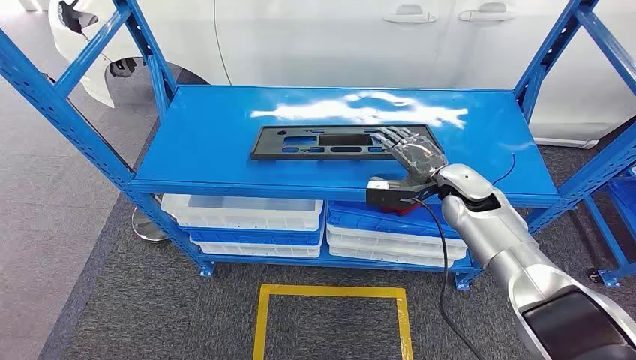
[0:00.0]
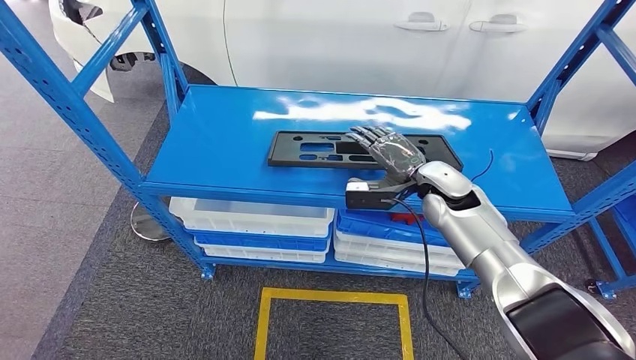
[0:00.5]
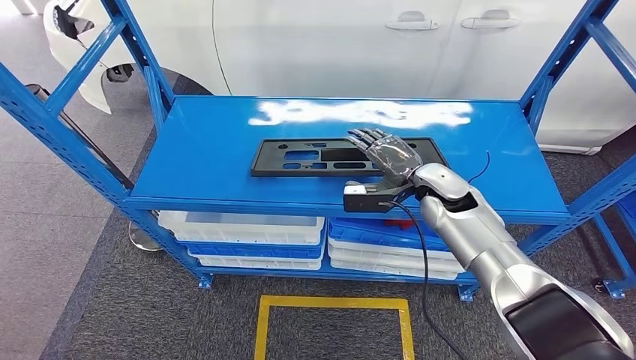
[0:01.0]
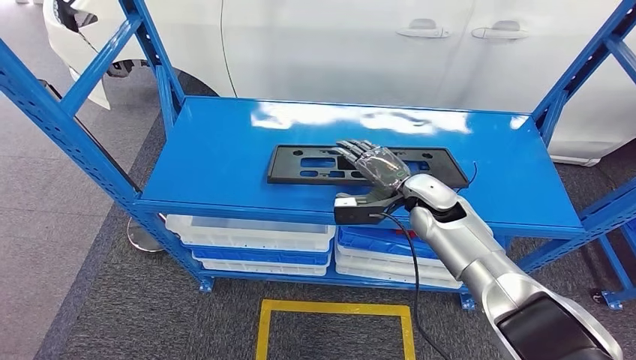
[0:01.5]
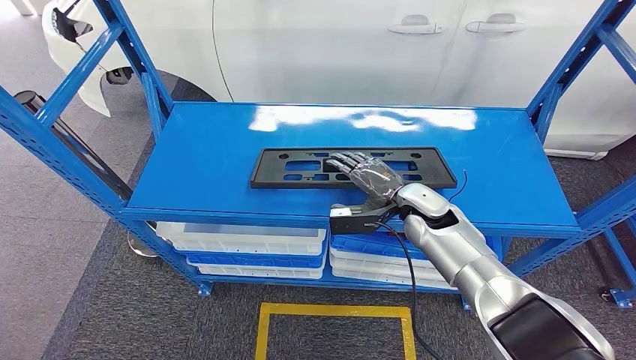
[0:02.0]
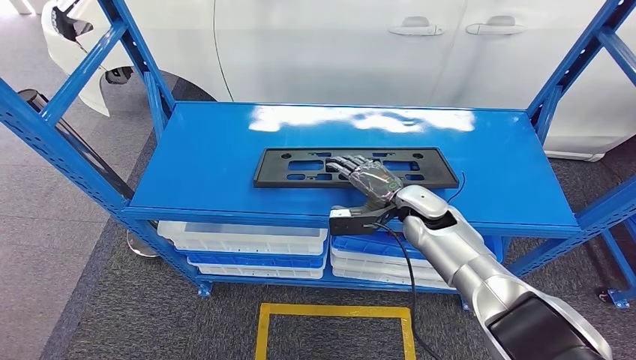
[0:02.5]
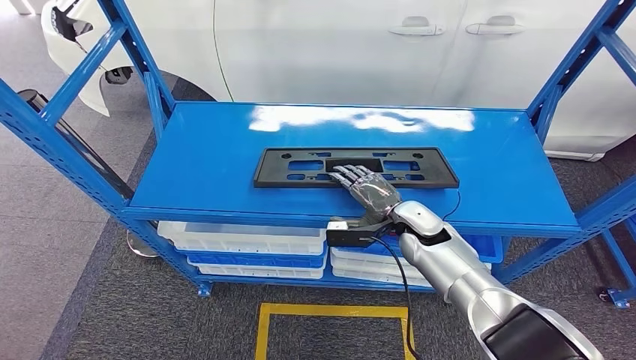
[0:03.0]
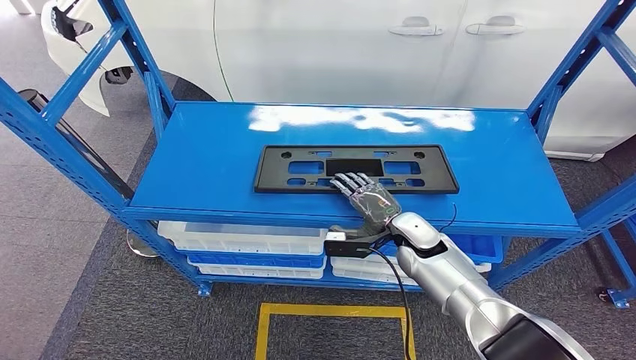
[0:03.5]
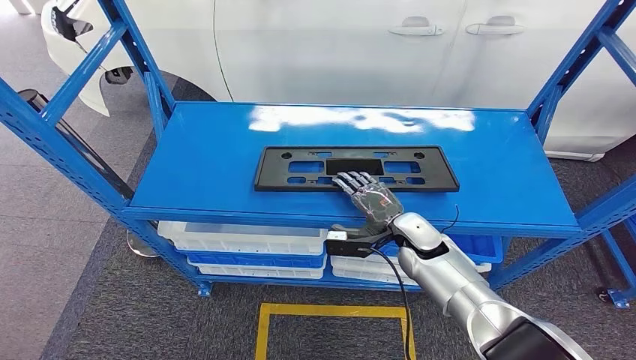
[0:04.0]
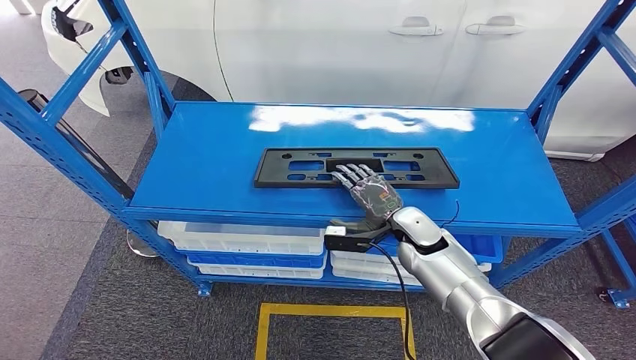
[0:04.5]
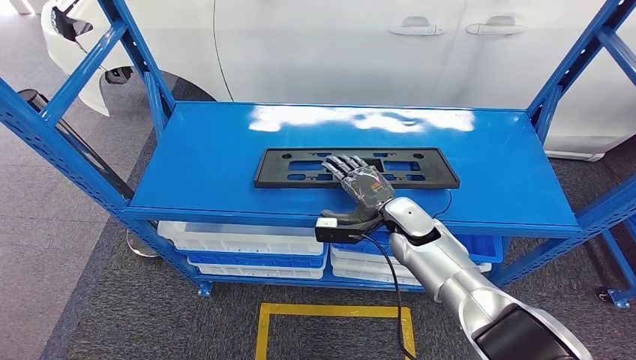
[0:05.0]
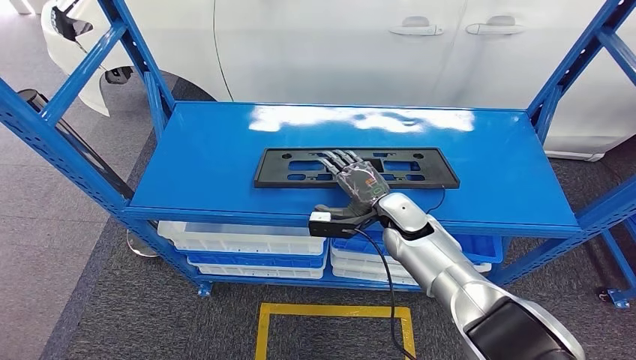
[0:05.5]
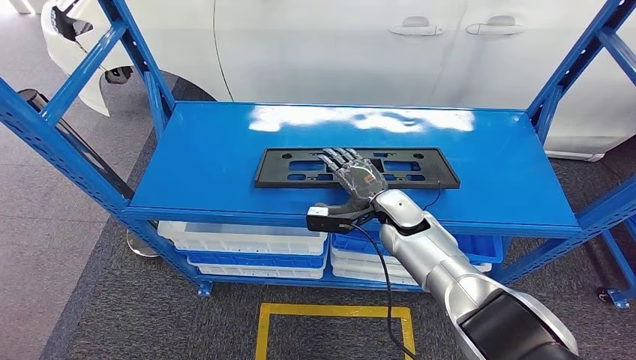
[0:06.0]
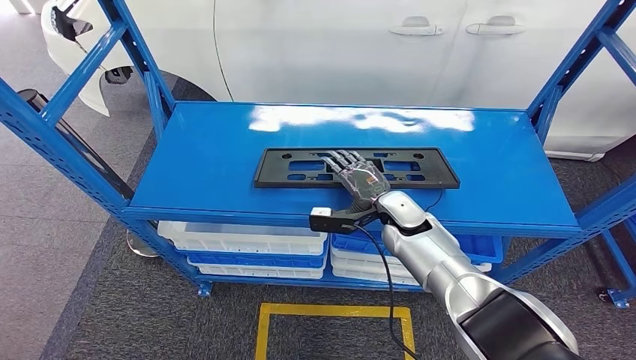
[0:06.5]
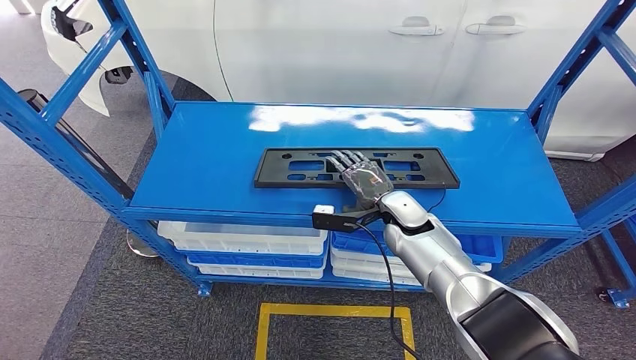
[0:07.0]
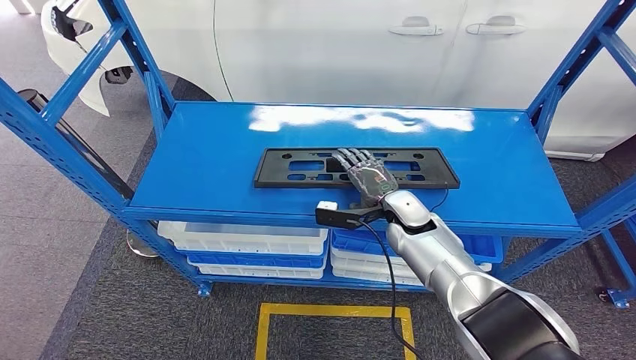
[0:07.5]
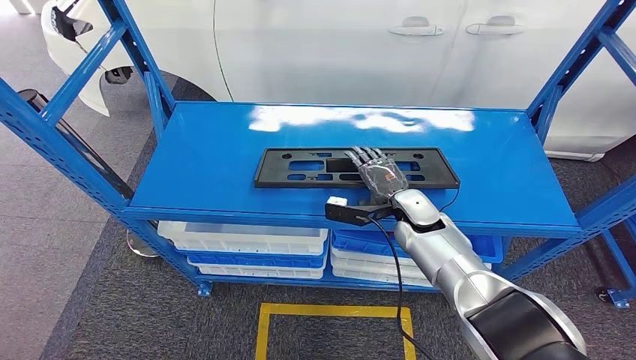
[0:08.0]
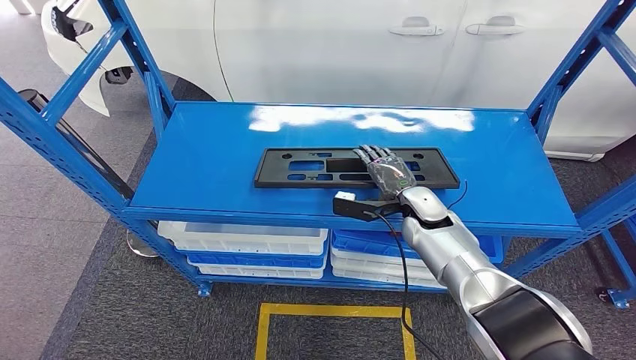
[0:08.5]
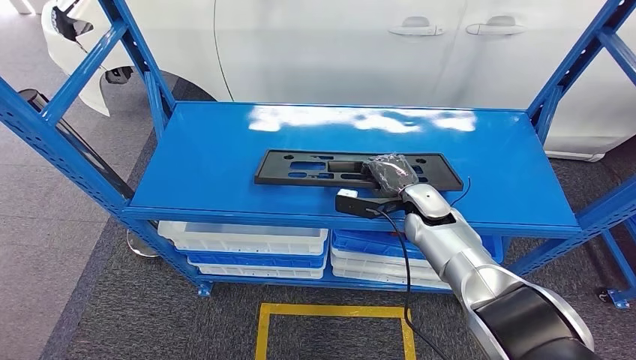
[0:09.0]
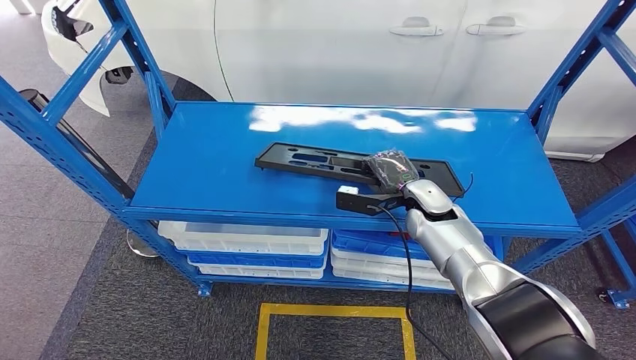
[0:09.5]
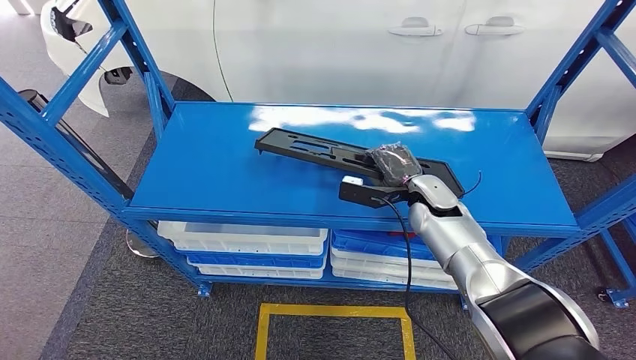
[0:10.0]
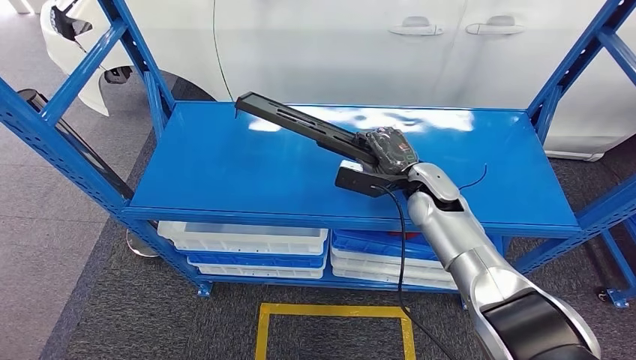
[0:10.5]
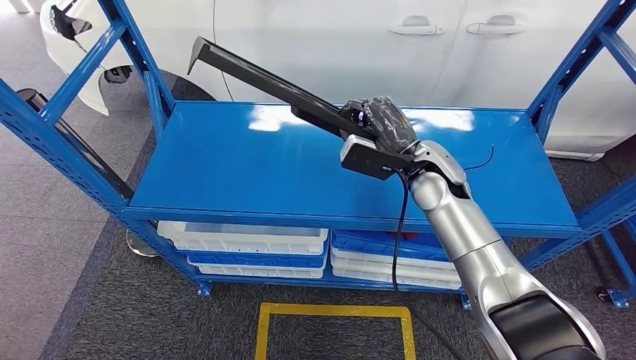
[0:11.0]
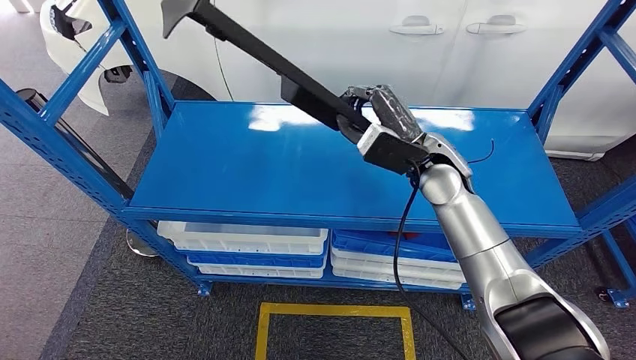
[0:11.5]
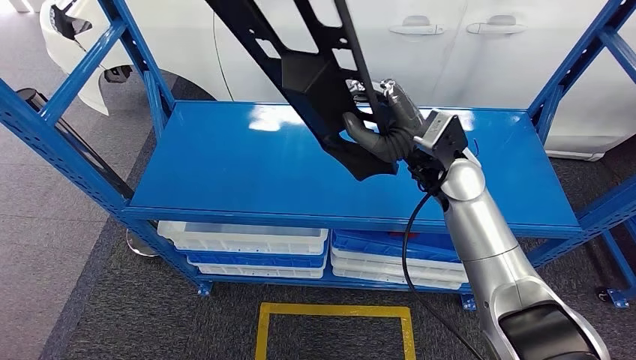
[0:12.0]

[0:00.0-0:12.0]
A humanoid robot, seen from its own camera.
0:02.0 to 0:04.0: The right hand travels downward by about 5 cm.
0:04.0 to 0:06.0: The right hand shifts by roughly 5 cm.
0:06.0 to 0:08.0: The hands make only small movements.
0:08.0 to 0:10.0: The hands move only a little.

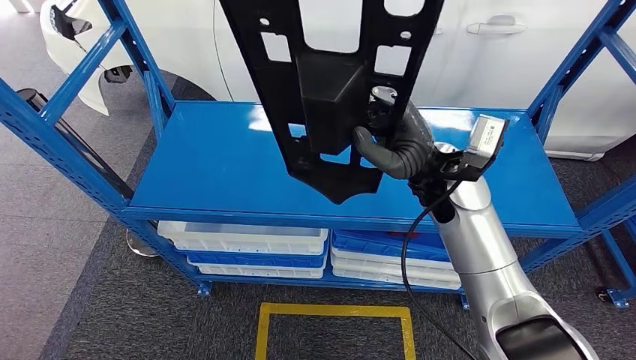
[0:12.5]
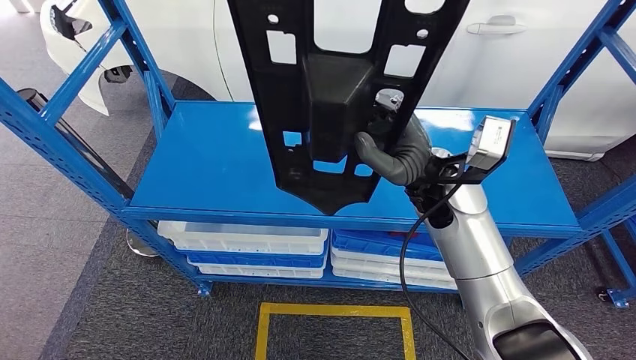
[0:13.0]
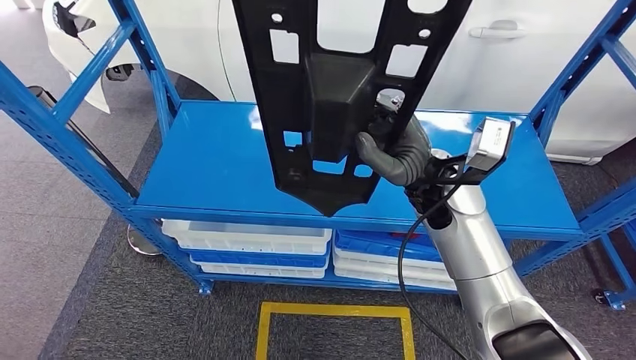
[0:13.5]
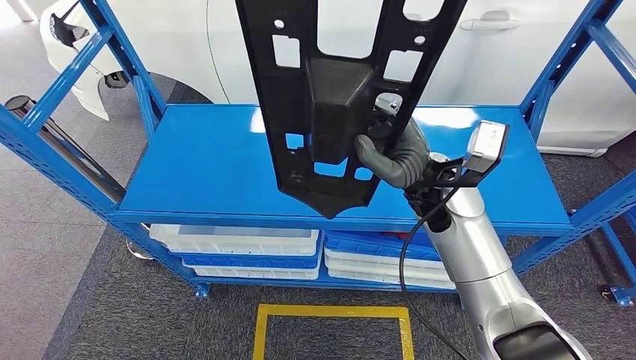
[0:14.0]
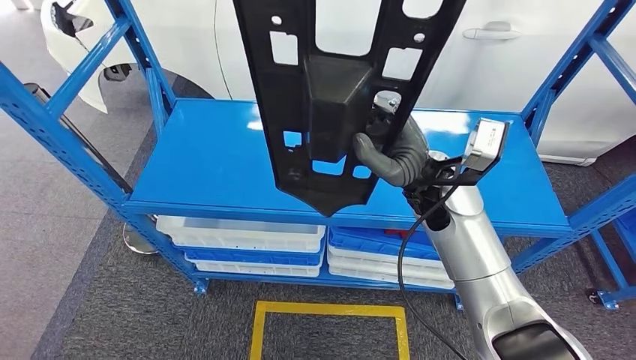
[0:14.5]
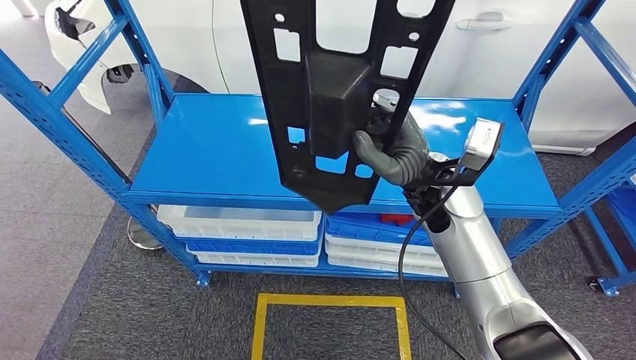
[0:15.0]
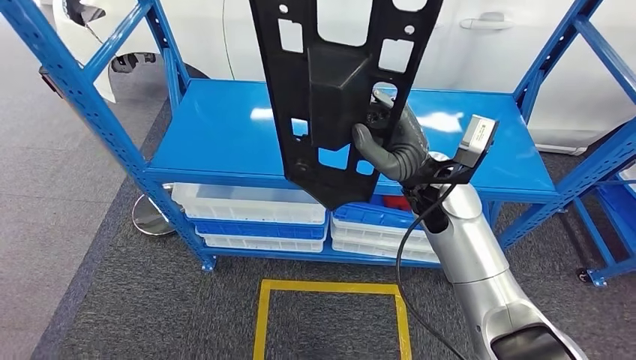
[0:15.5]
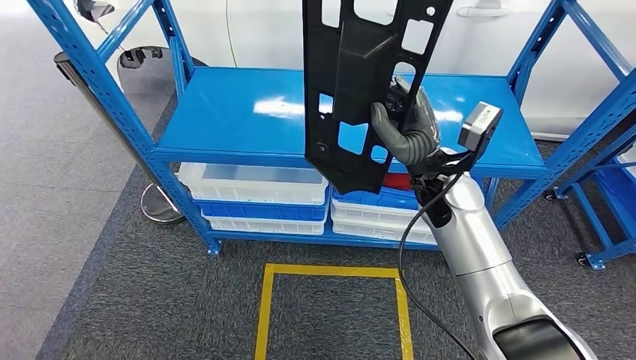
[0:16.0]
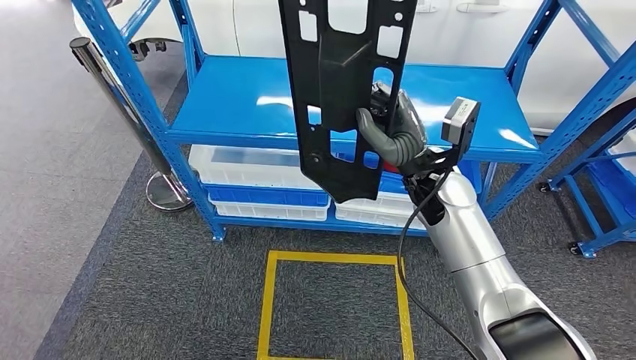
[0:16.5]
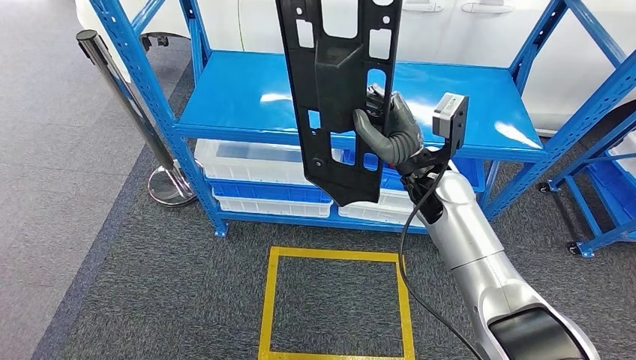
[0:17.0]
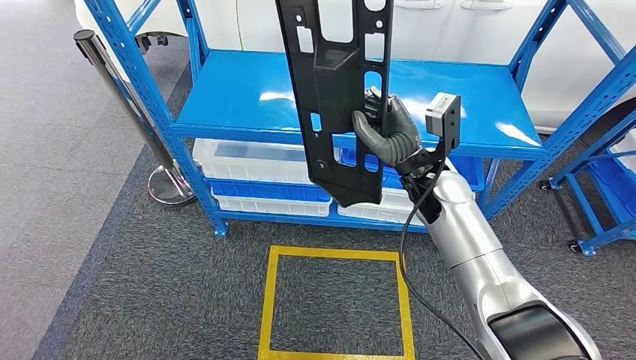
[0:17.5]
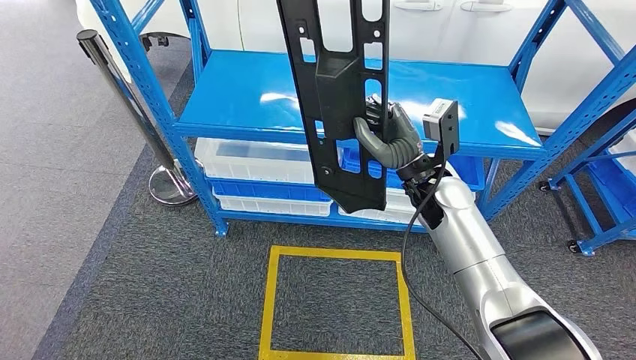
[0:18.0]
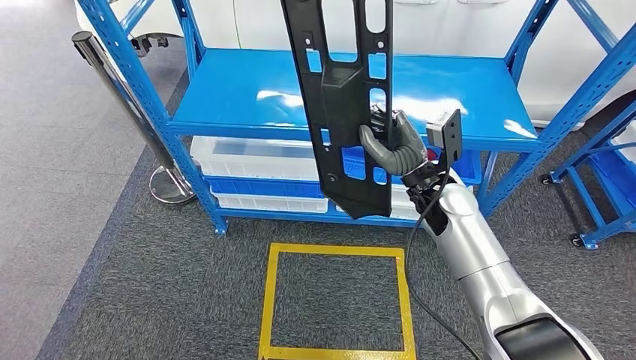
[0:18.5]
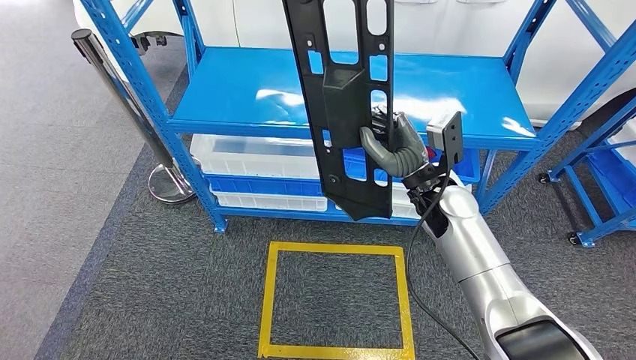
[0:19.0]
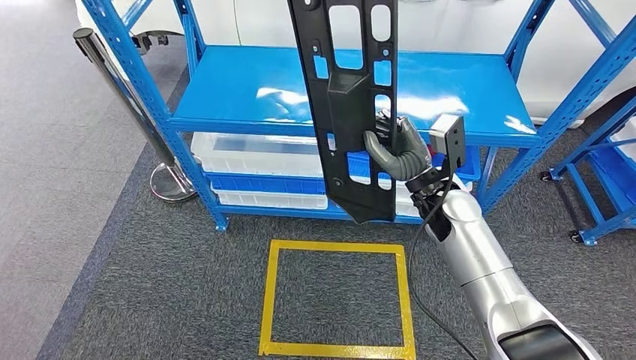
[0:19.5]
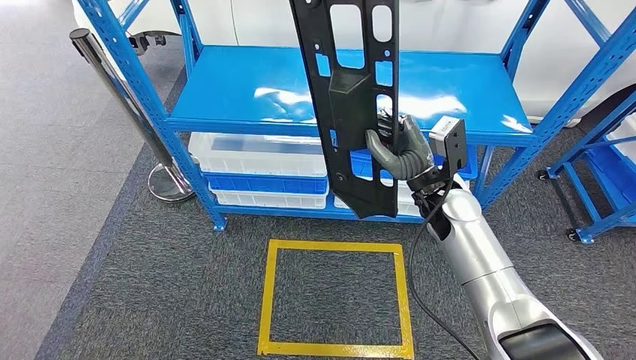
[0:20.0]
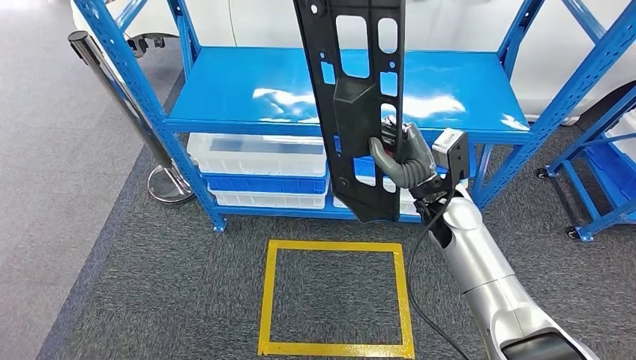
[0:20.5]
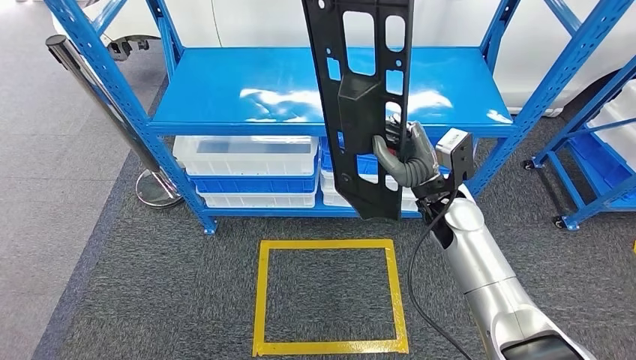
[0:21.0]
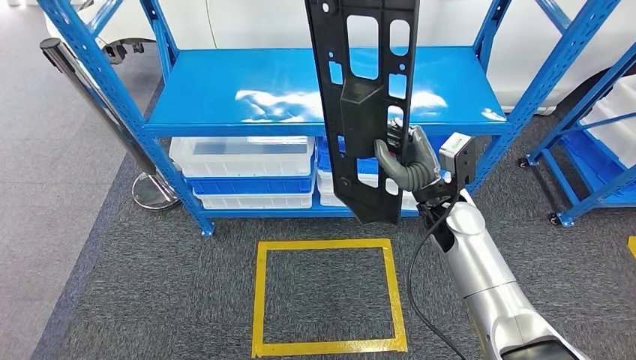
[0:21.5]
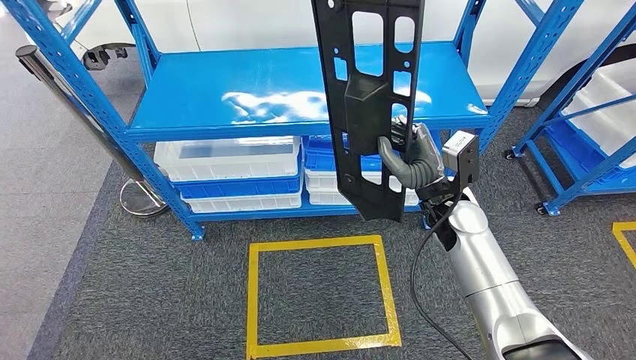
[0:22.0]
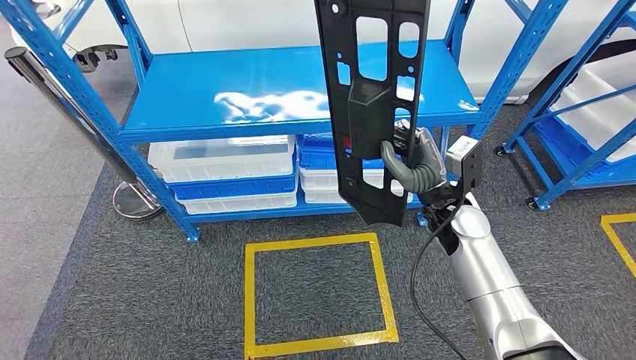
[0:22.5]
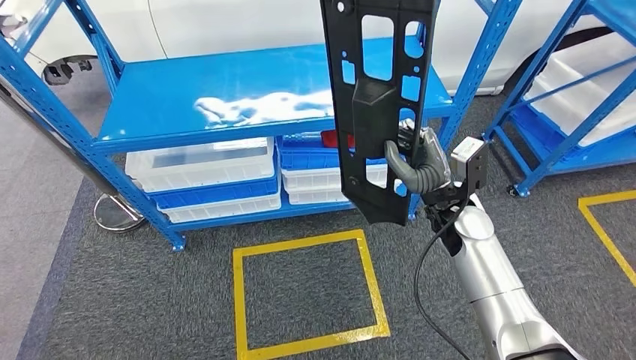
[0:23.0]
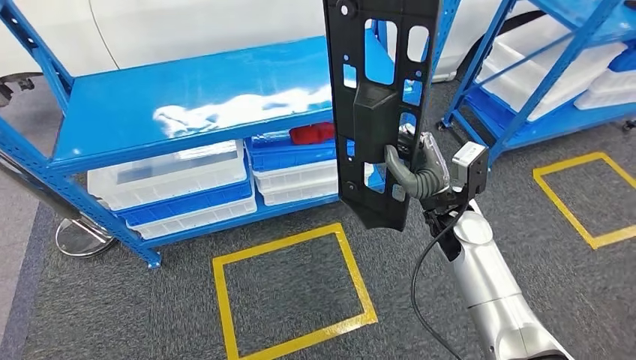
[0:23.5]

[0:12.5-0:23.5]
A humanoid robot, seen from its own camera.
Step, 0:12.5 to 0:16.0: Pick up the large material from the shelf.
